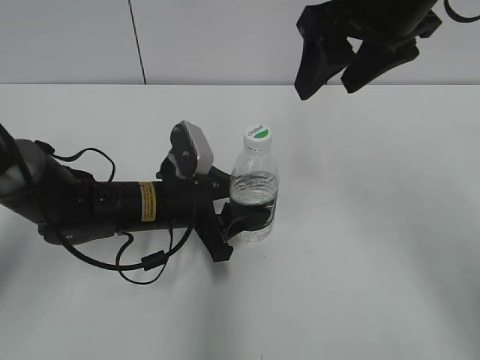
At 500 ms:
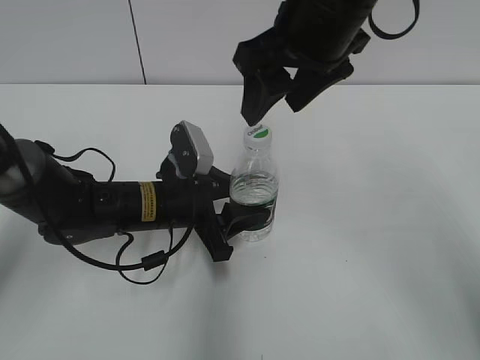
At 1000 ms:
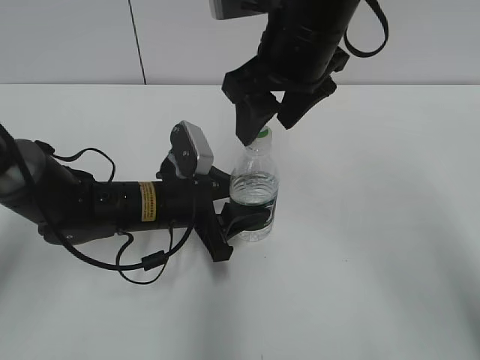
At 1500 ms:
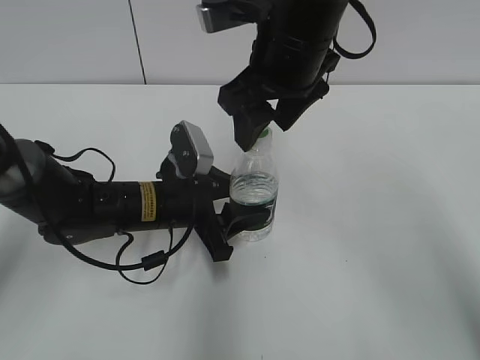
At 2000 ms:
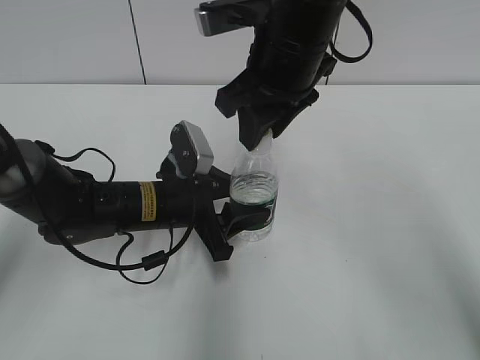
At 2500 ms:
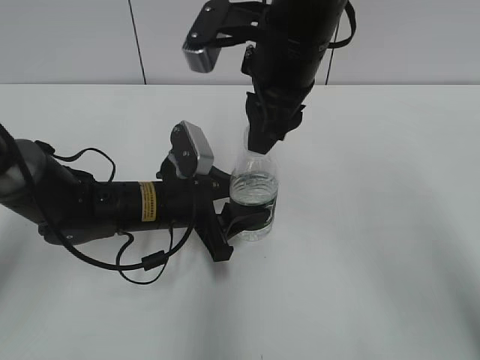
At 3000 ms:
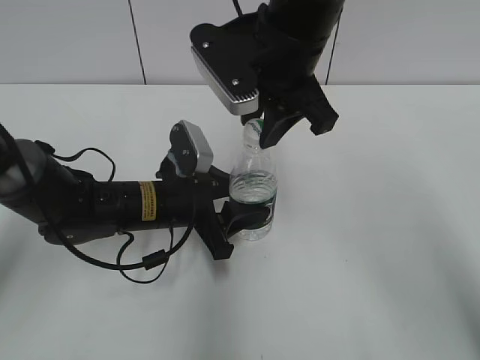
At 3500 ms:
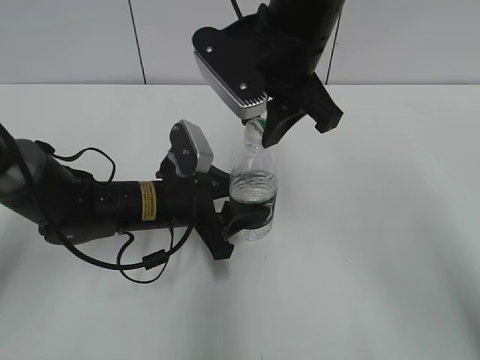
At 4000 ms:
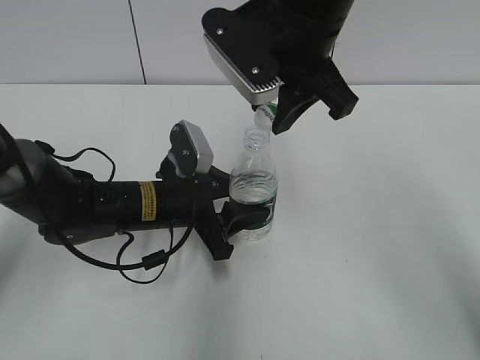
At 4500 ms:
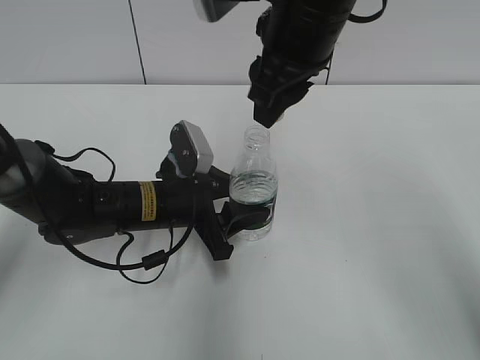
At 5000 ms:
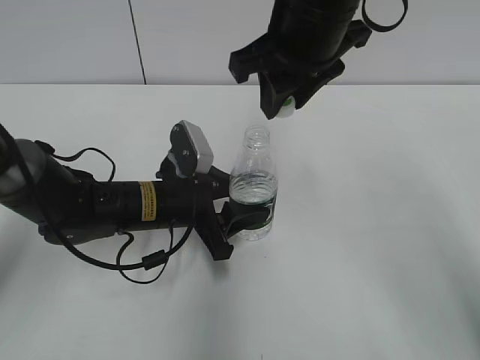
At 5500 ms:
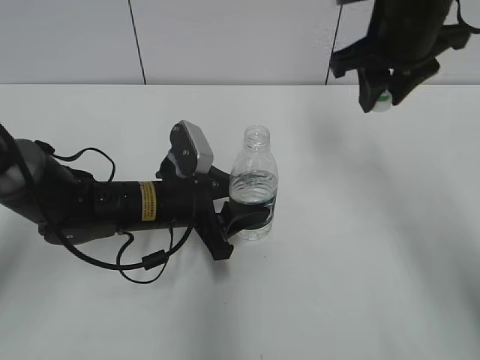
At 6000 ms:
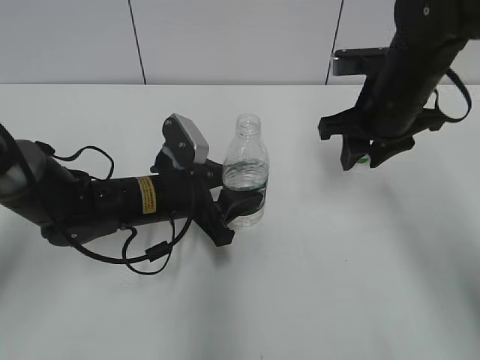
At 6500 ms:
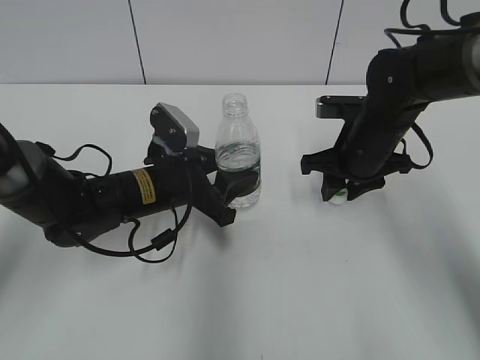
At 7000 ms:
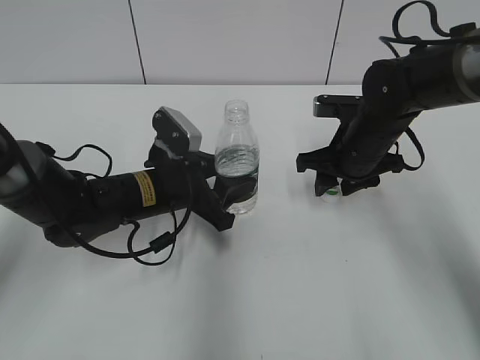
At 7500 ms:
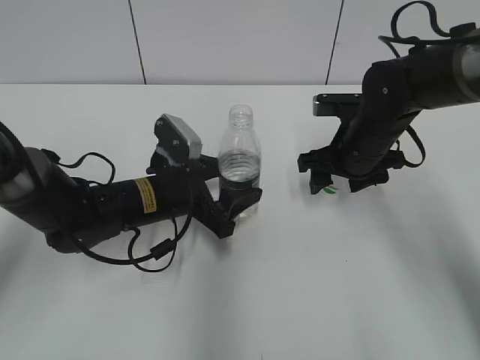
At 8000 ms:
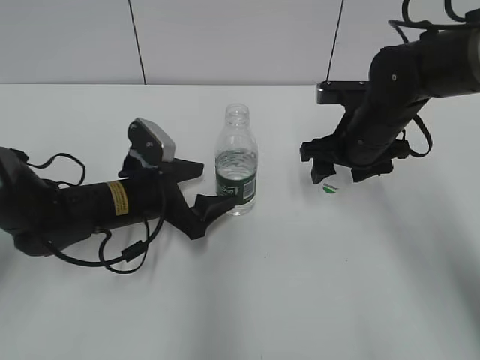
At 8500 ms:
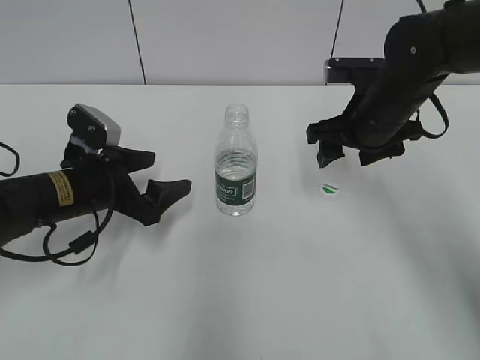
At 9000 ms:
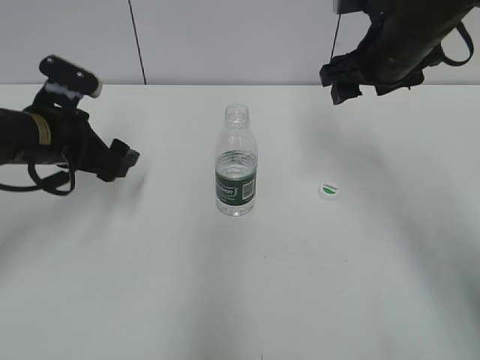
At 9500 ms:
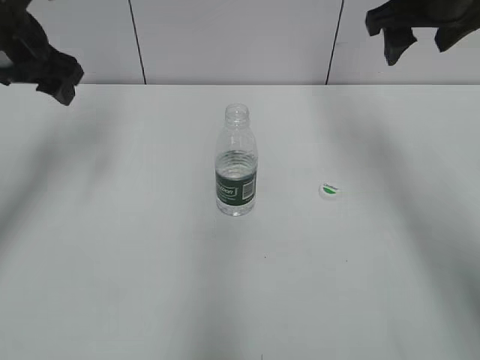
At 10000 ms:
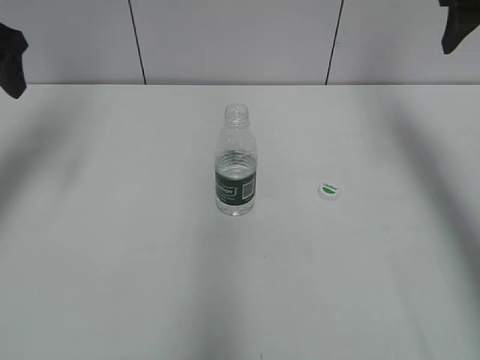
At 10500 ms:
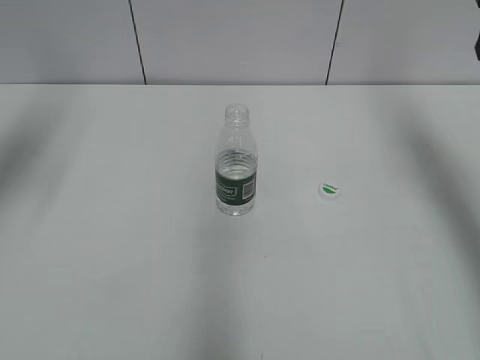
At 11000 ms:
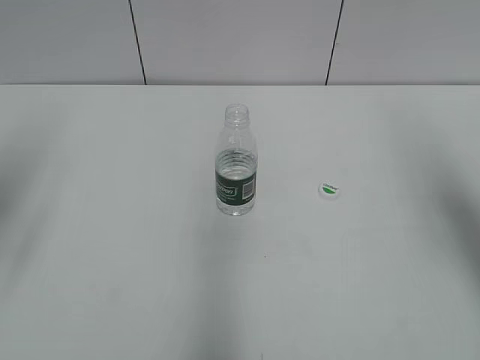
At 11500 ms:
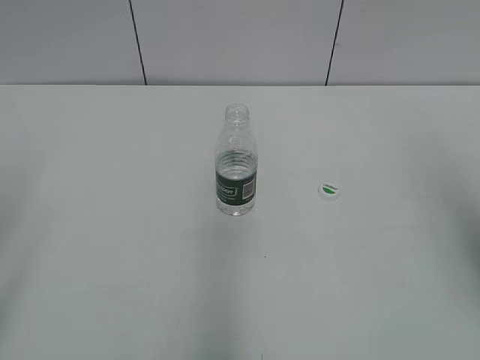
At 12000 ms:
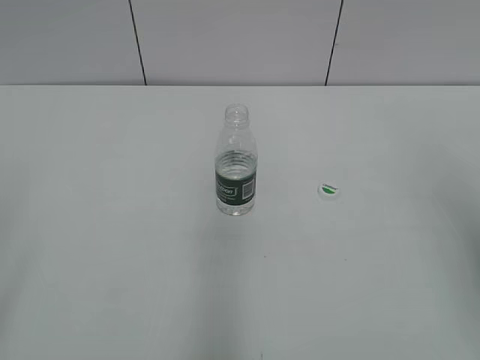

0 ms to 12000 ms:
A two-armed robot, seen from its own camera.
Step, 0 ms to 4500 ms: Unscrew the bottle cap with the right gripper while holding the bottle with the left gripper.
Step, 5000 ms to 7000 ms: Place the bottle cap on the table with the right gripper.
Step, 7500 ms to 8000 ms: Place the bottle on the table with the left gripper.
0 ms to 2000 ms: The right gripper heads to the left and downward, covering some 10 cm, and closes.
4000 ms to 6000 ms: The right gripper shifts roughly 15 cm to the right and downward.
6000 ms to 8000 ms: The right gripper travels downward by about 5 cm, and opens up. Meanwhile the left gripper opens up.
8000 ms to 10000 ms: The right gripper heads upward and to the right, covering roughly 25 cm, while the left gripper is displaced upward and to the left by some 30 cm.
10000 ms to 12000 ms: The two grippers go roughly 30 cm backward.

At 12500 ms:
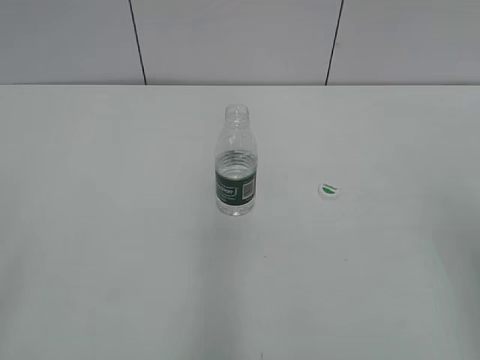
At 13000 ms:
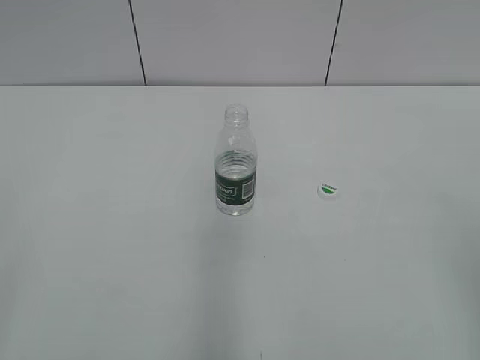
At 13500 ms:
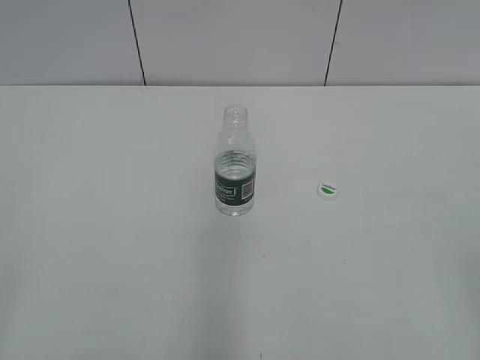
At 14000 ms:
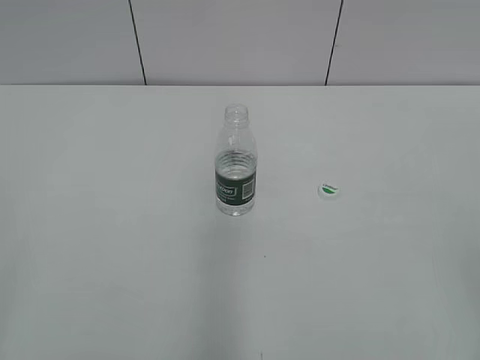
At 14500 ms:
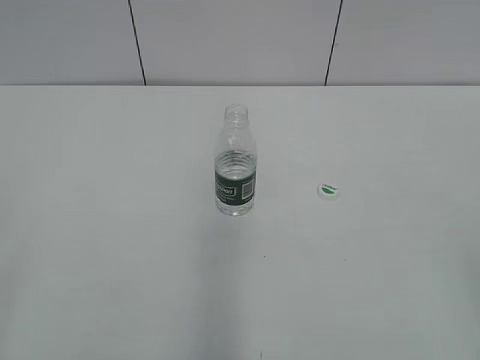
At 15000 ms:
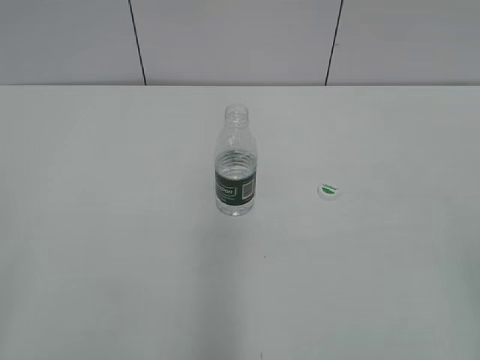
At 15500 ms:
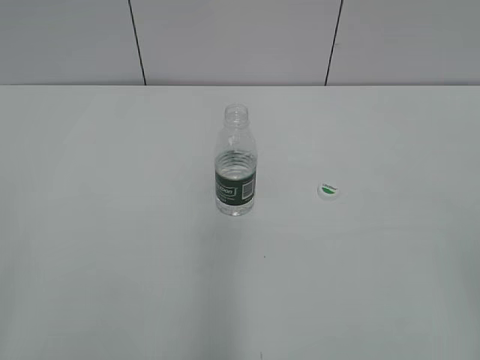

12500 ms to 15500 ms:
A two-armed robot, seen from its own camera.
14000 ms to 15500 ms: The two grippers keep their place.
